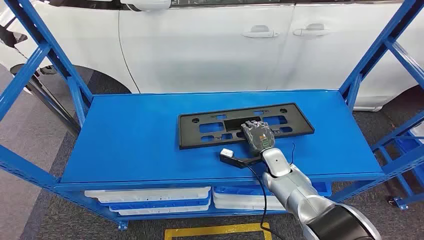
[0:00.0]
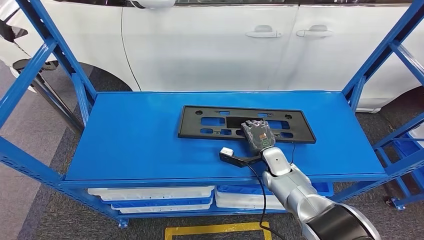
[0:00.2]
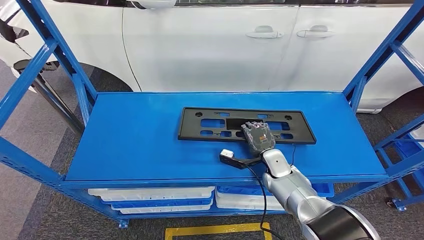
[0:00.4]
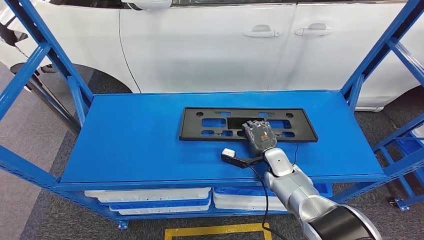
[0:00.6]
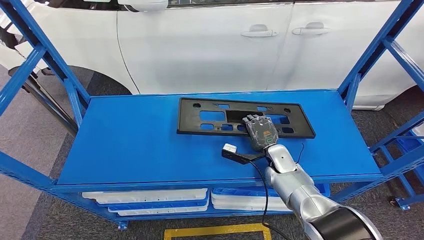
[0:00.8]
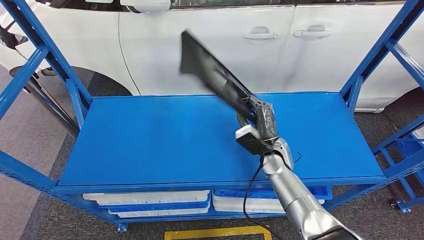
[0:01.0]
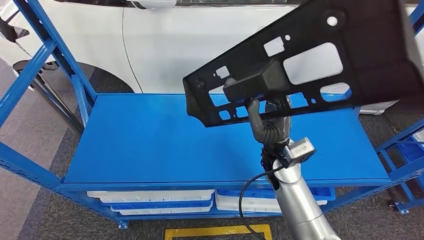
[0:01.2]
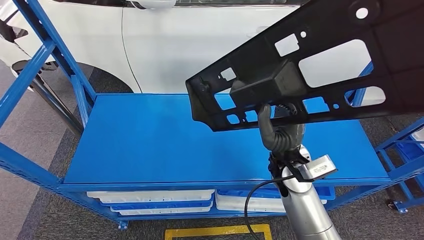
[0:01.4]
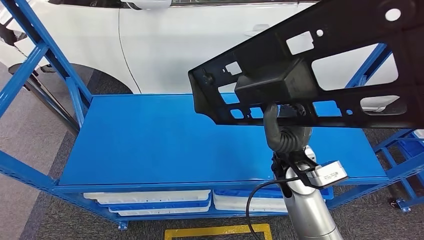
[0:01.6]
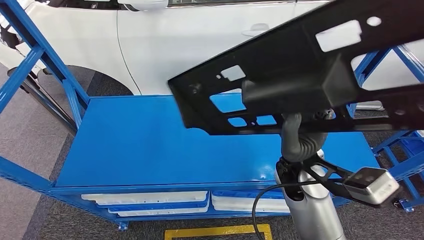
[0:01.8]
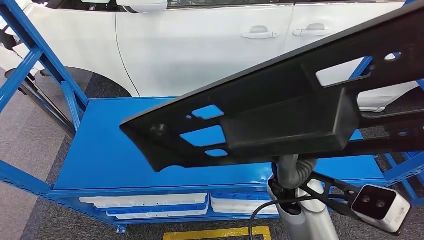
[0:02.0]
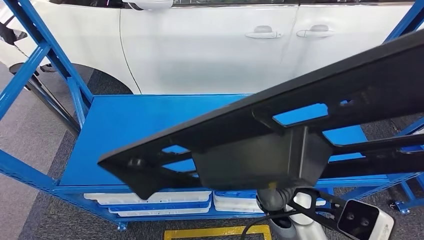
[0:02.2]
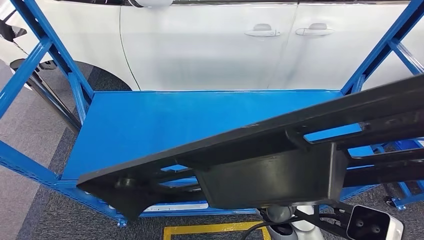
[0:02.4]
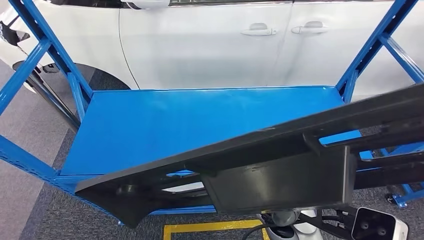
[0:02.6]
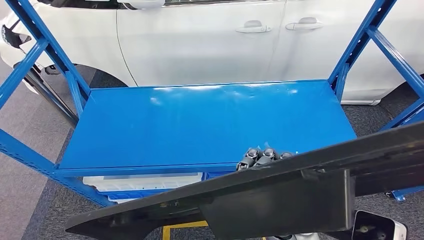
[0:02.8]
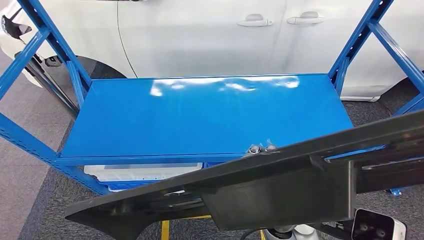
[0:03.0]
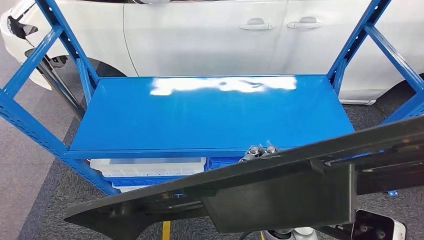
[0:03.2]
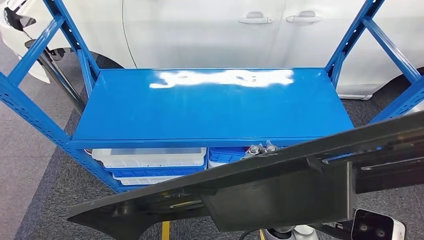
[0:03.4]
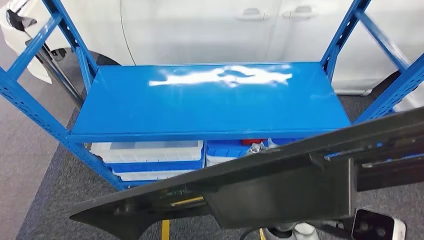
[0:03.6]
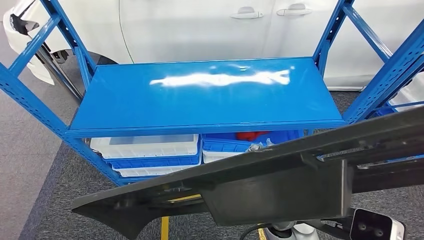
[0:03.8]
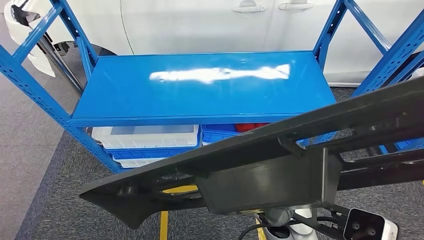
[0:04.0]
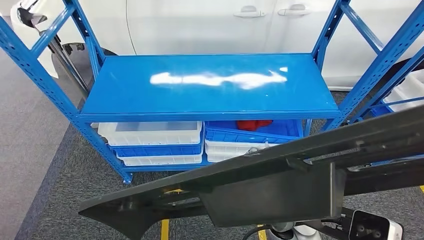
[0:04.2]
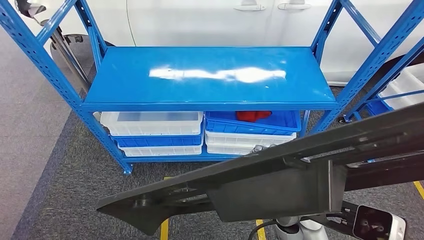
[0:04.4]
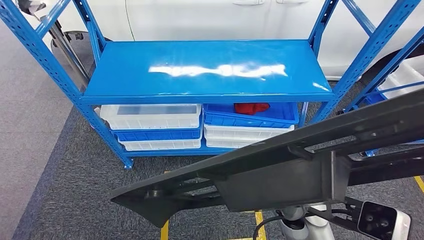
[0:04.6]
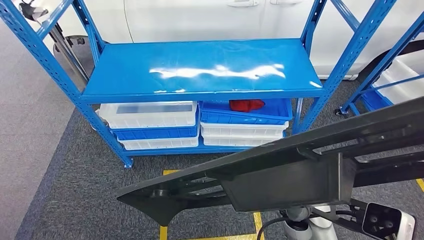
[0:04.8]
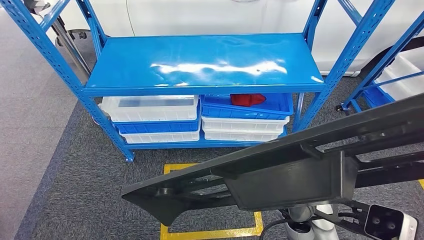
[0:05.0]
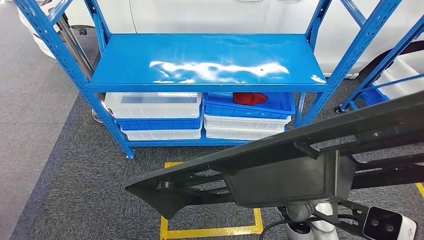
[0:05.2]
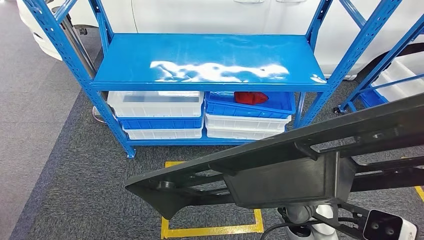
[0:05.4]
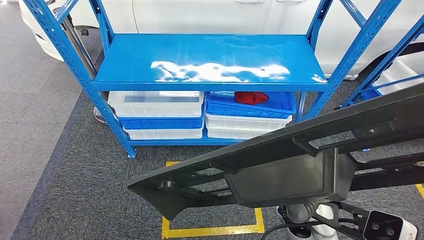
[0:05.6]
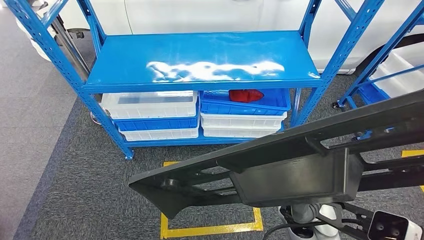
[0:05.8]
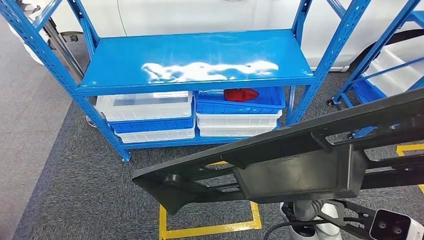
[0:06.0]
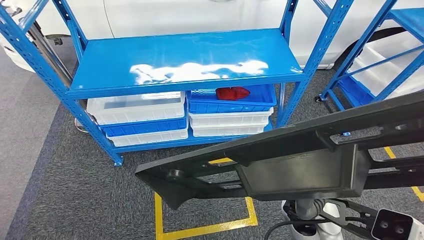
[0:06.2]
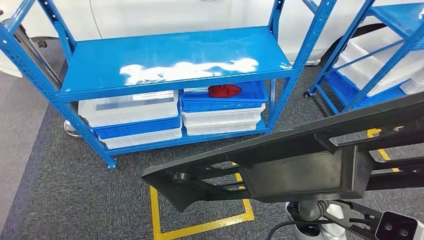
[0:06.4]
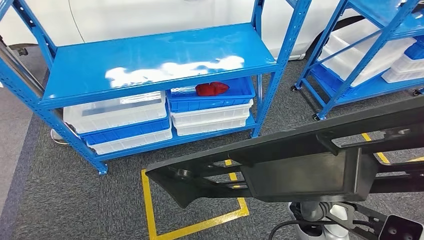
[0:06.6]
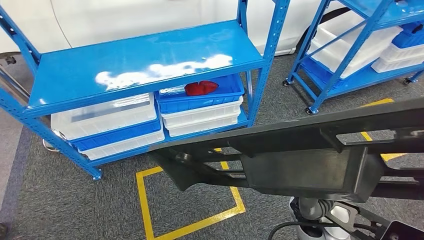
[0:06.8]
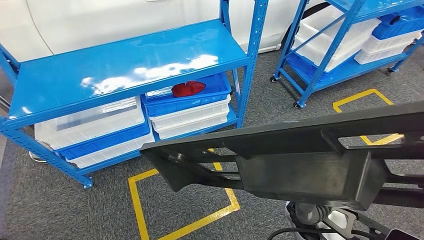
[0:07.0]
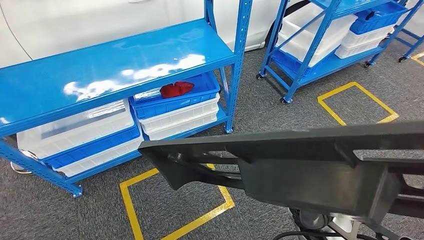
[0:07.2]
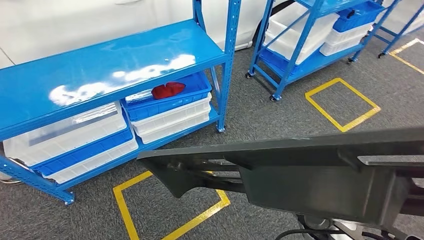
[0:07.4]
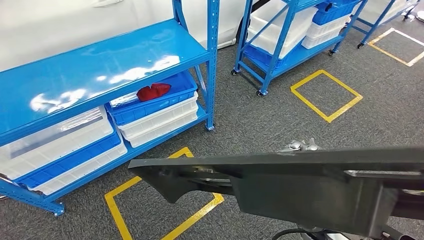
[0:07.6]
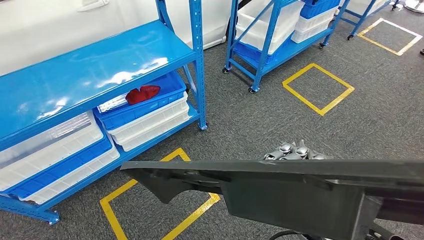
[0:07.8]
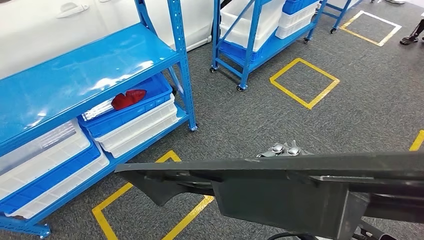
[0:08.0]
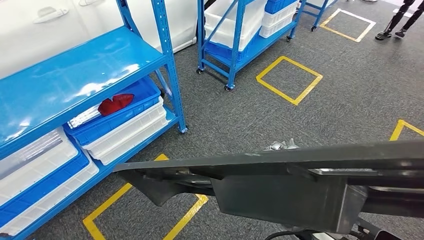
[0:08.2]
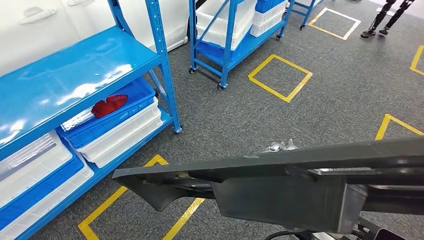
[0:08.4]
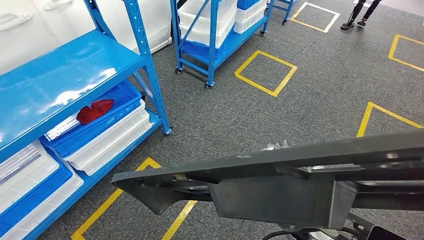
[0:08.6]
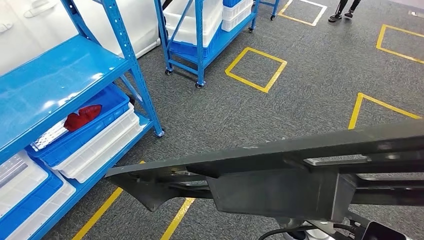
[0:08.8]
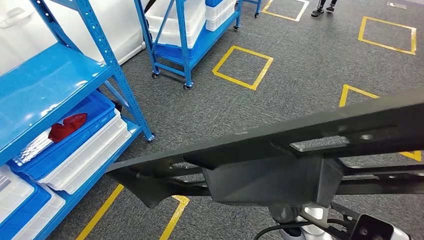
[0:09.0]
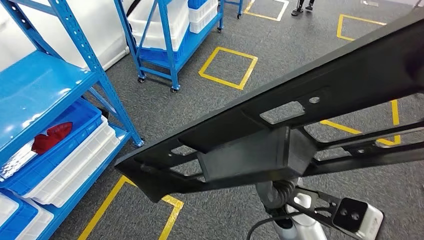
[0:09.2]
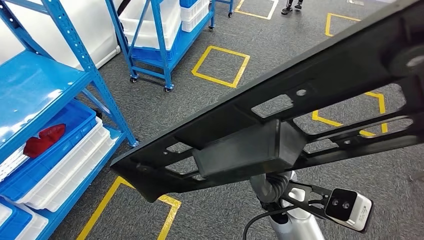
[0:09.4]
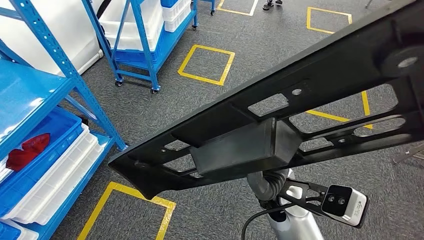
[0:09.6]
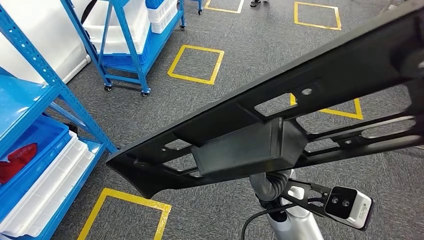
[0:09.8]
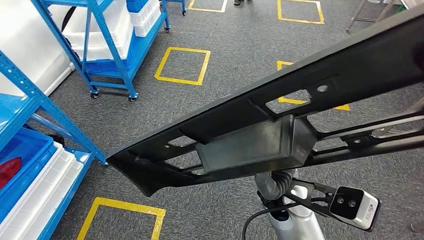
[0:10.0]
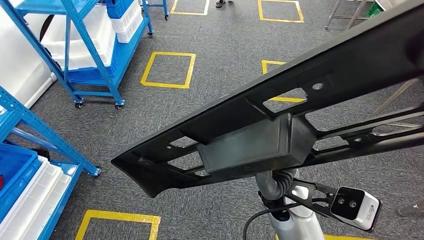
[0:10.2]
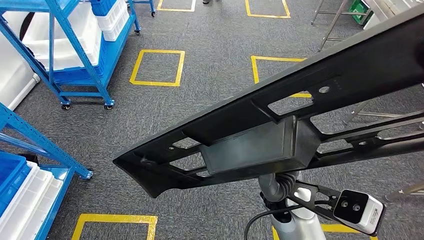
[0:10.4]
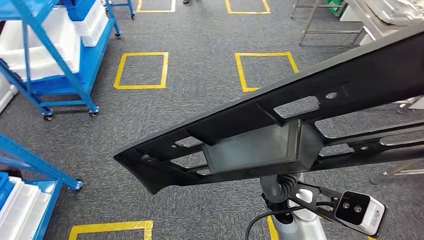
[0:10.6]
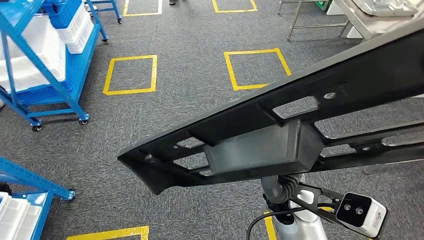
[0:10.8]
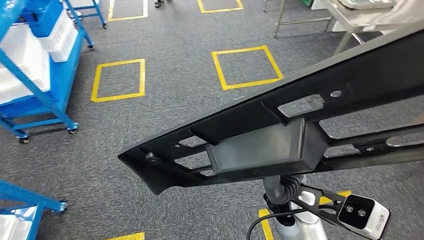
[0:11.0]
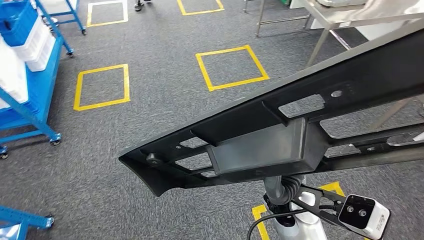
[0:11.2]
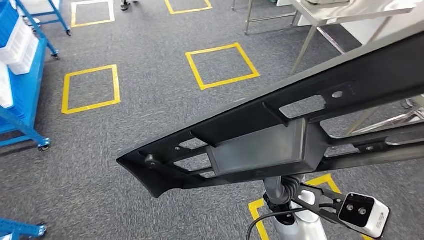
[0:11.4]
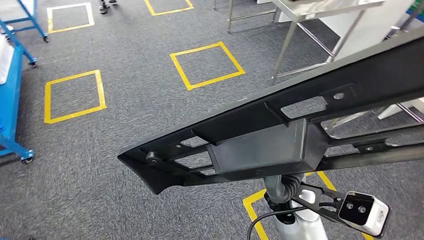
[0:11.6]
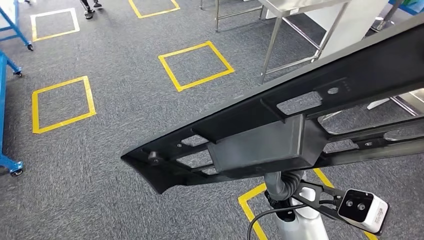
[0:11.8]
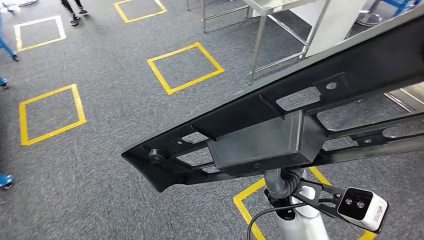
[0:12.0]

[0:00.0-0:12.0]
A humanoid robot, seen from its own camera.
Step, 0:00.0 to 0:02.8: Pick up the large material from the shelf.

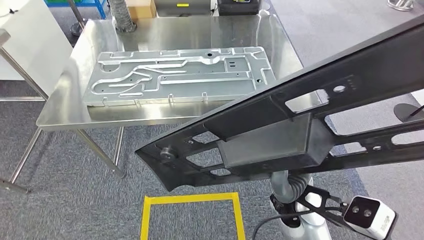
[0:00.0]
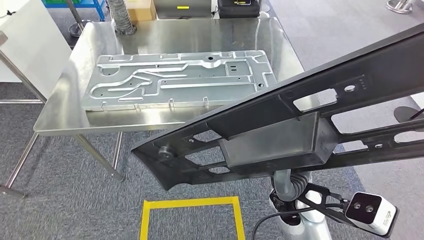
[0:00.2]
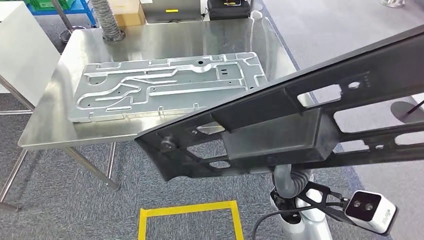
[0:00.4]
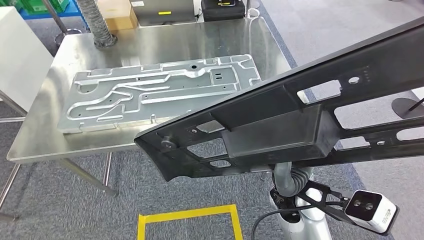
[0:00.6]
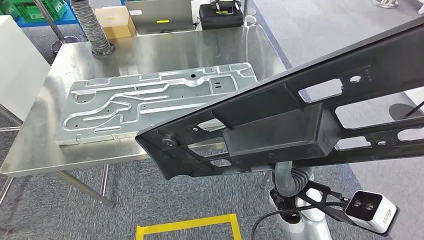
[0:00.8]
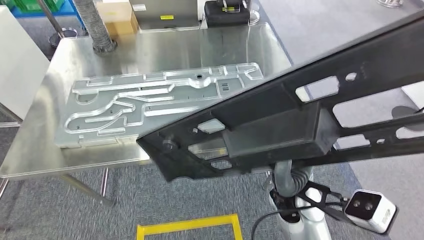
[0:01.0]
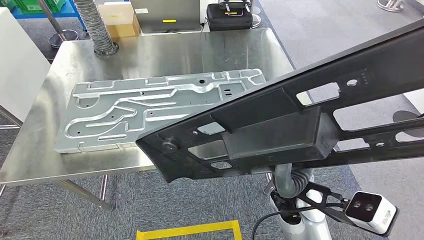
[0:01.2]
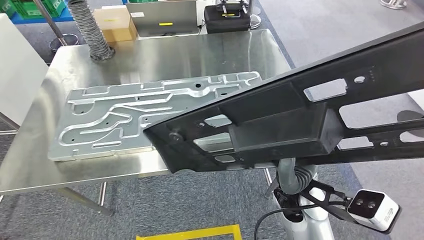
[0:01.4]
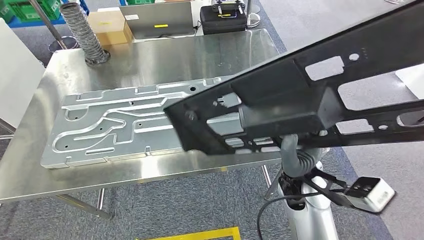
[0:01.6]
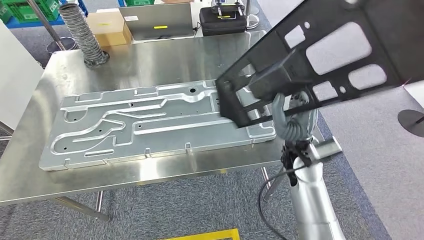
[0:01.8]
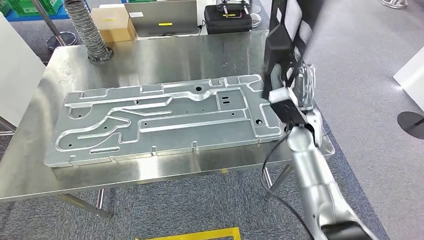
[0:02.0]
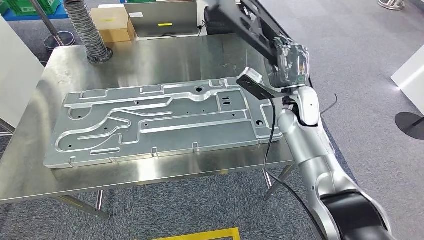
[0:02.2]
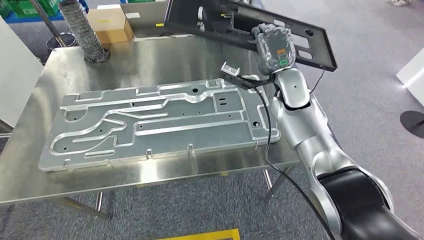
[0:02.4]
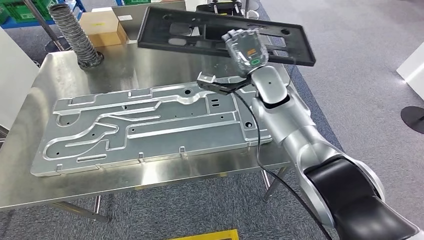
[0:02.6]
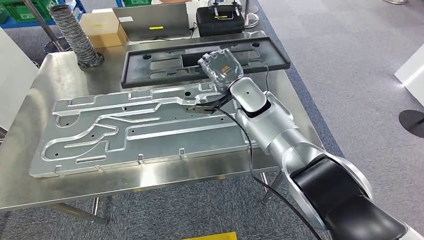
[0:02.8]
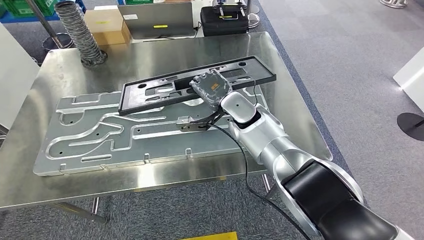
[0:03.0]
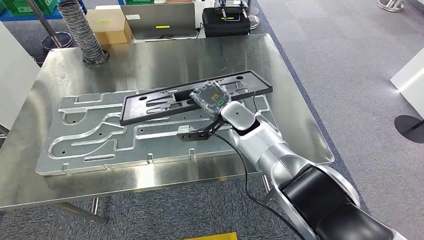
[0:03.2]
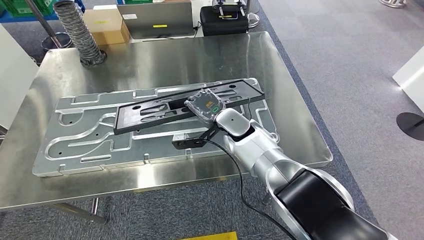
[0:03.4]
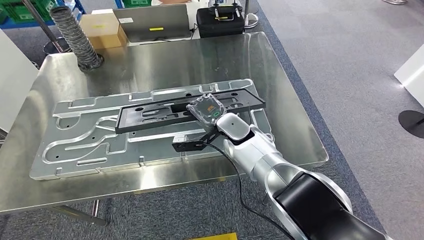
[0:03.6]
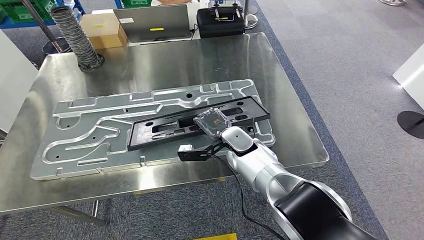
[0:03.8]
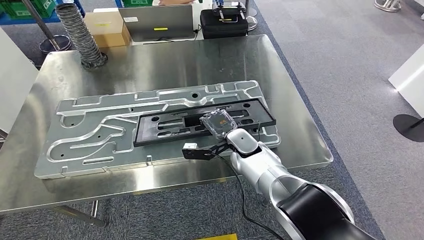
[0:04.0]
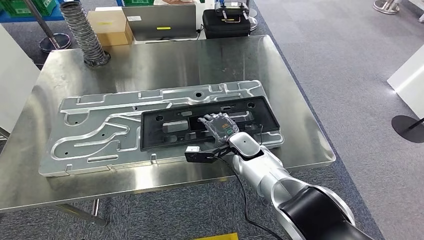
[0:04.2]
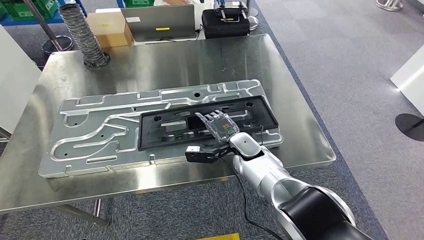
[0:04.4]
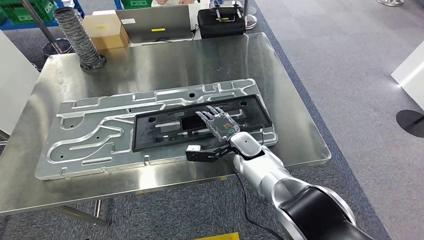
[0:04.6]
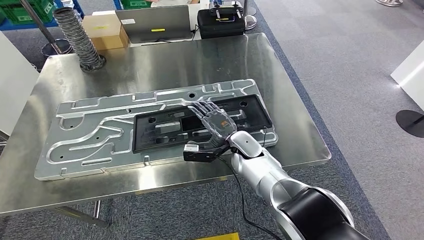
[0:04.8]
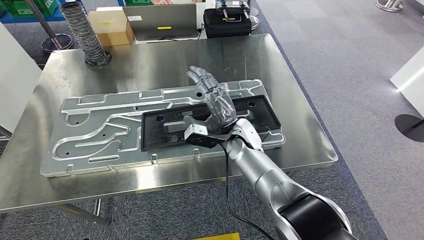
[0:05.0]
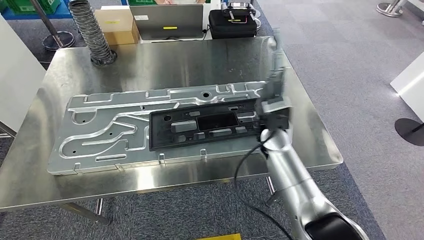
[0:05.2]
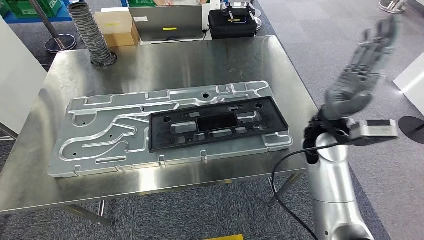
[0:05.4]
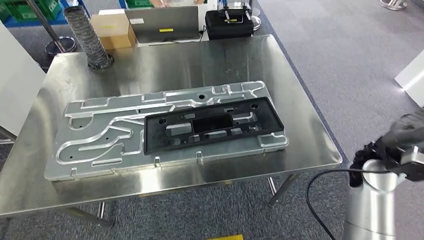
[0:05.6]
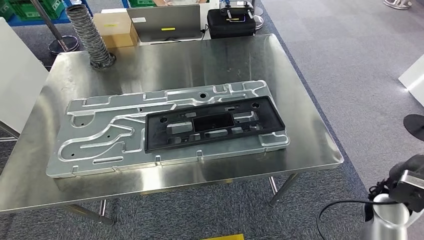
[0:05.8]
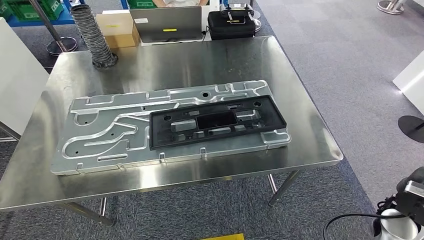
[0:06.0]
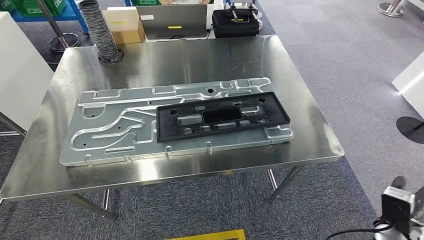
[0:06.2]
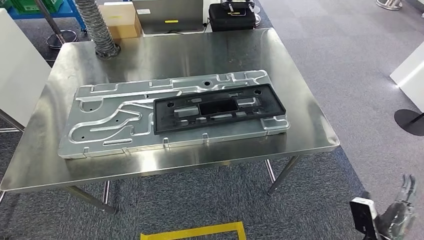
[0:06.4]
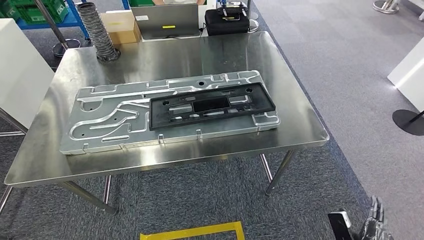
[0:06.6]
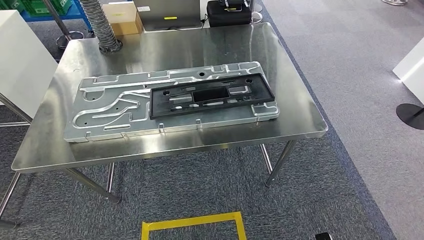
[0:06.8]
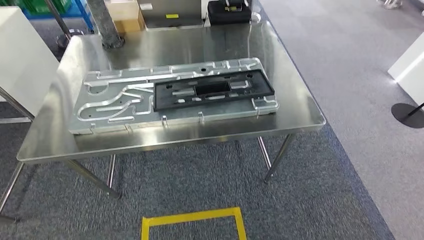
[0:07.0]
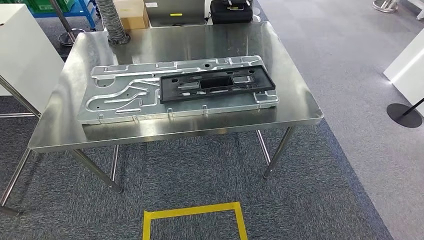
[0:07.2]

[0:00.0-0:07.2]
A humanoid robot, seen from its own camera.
Step, 0:02.2 to 0:05.0: Insert the large material into the corresponding slot on the workbench.
